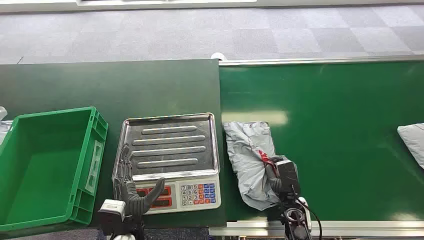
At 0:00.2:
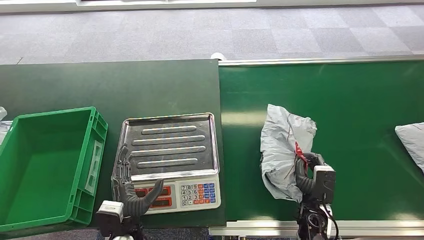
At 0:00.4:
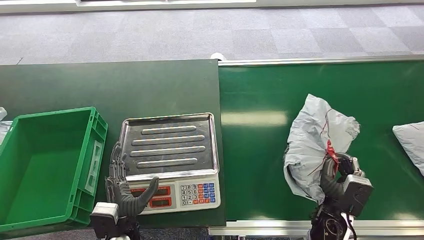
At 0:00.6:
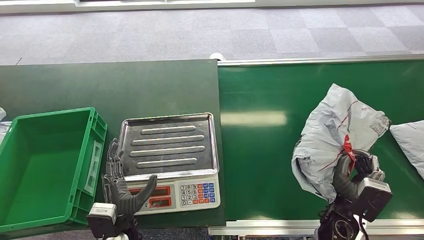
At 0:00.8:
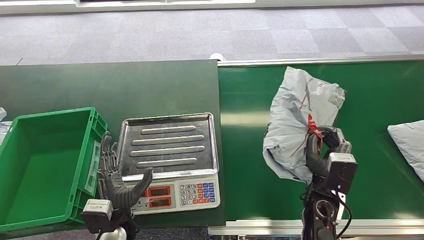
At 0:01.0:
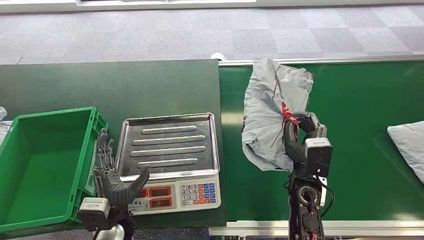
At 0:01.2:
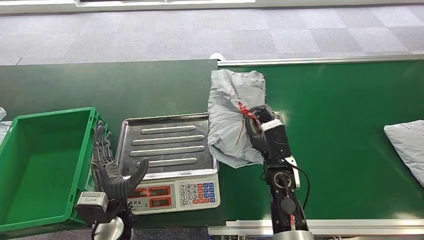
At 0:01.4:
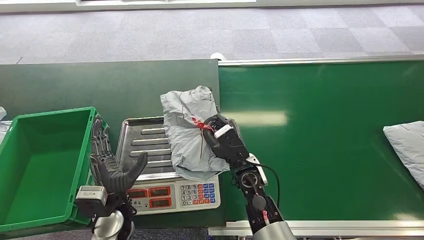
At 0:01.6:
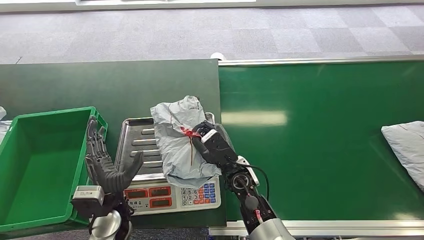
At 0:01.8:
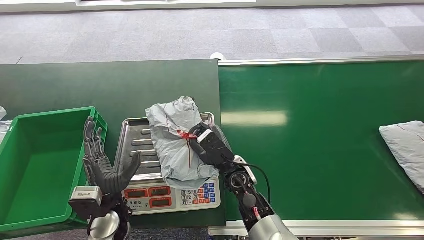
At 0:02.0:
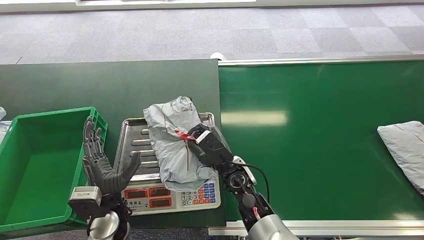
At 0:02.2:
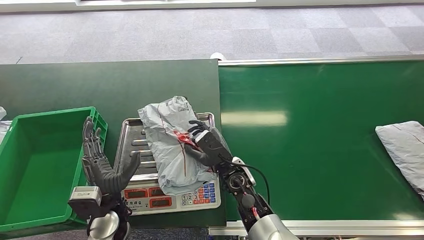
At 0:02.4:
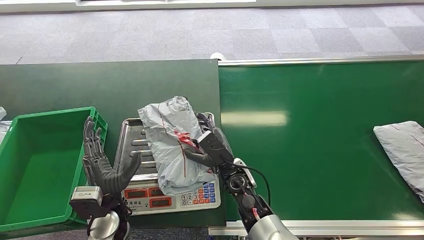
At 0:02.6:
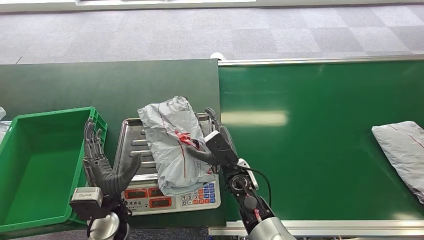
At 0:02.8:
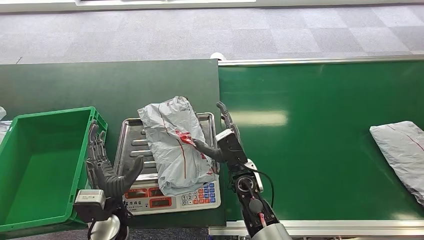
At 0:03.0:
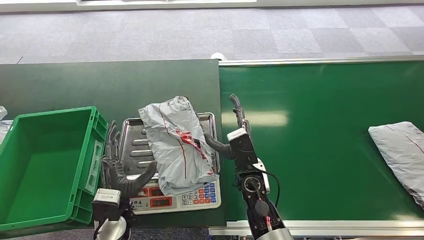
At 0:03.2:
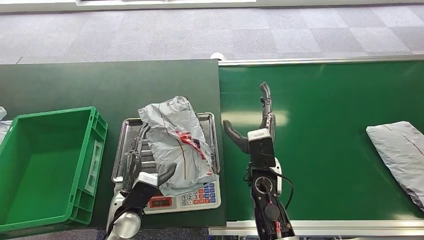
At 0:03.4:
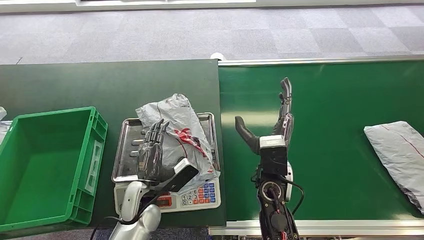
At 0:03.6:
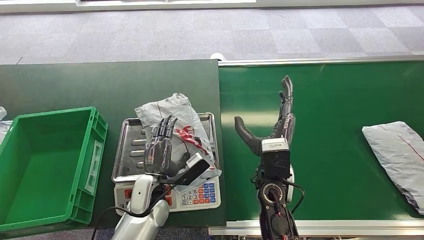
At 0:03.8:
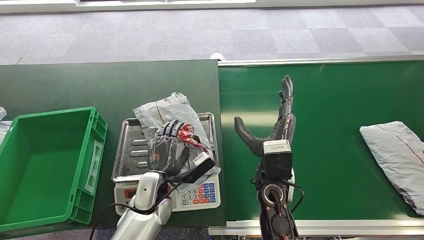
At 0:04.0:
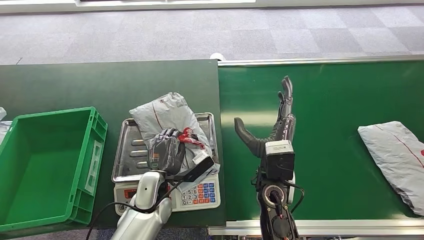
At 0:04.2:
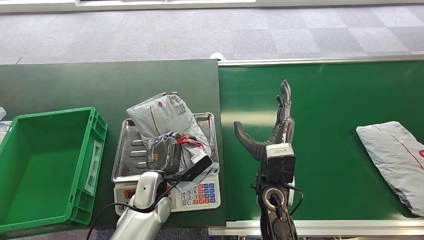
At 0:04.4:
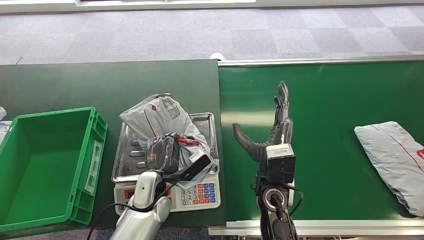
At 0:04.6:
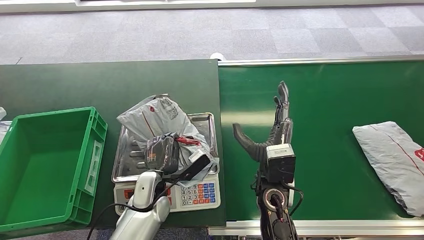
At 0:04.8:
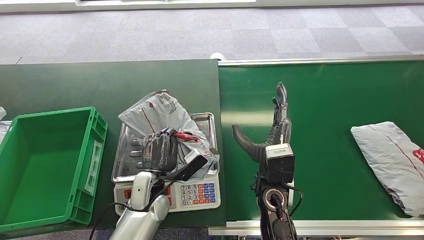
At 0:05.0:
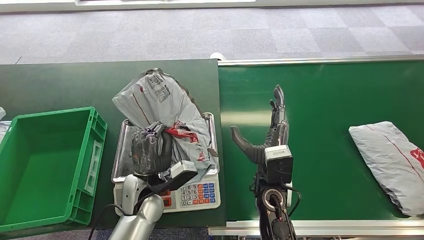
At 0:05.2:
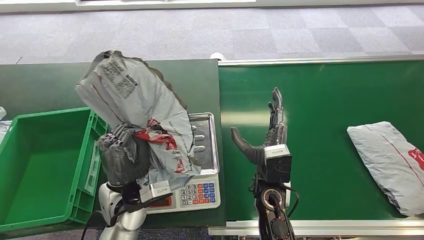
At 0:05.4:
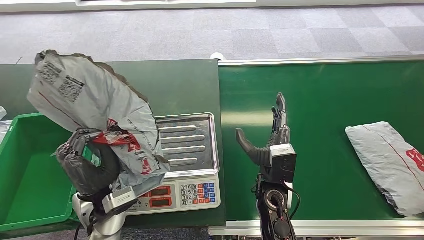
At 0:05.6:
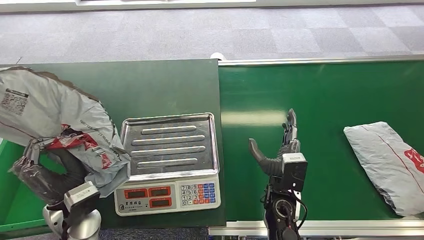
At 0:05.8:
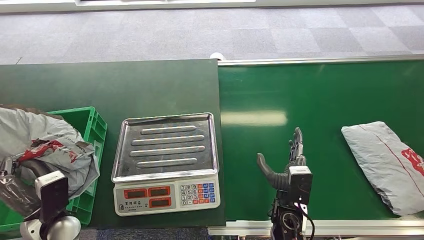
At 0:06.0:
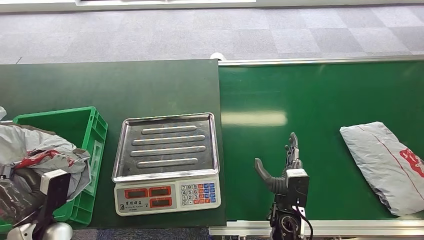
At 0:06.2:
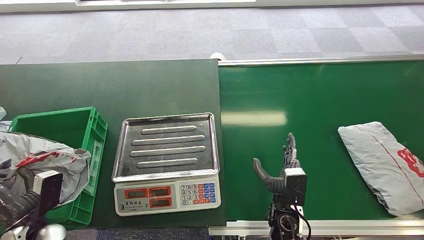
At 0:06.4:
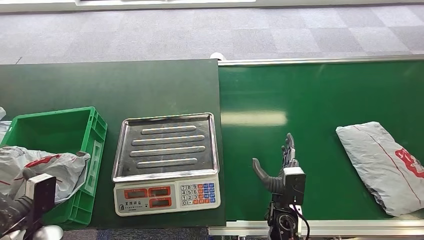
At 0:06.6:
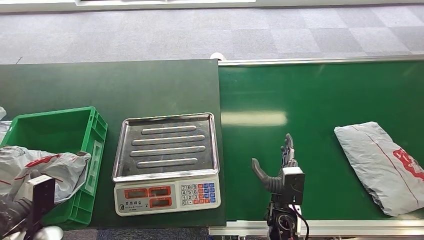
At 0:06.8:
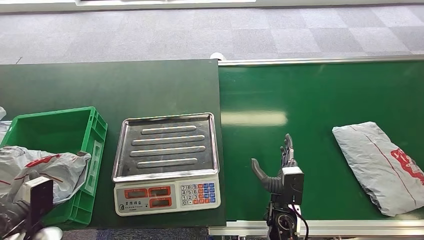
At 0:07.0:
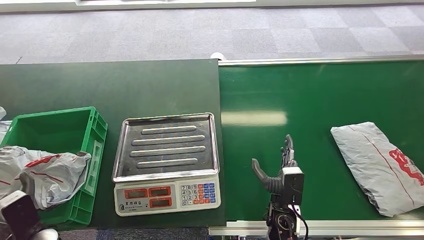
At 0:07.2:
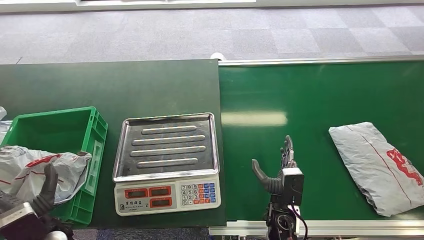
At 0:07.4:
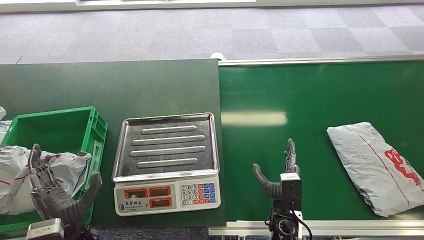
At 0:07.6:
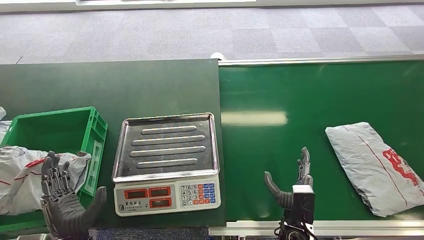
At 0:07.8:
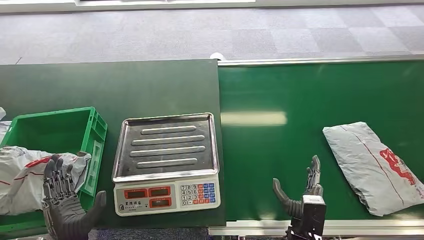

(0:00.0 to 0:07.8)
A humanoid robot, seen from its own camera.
Task of the whole recording: Weigh the package on the weighing device and place it in the left basket.
Step, 0:00.0 - 0:00.8: Pick up the package from the conveyor belt.
Step, 0:01.2 - 0:02.4: Place the package onto the inbound machine.
Step, 0:04.8 - 0:05.4: Pick up the package from the inbound machine.
Step, 0:06.0 - 0:07.6: Place the package into the parcel locker.
0:01.6 - 0:03.2: The right hand changes place by roughly 5 cm.
0:03.2 - 0:04.6: The left hand moves to the right and forward, about 10 cm.
0:06.2 - 0:07.8: The right hand heads backward, covering some 5 cm; the left hand shifts about 10 cm to the right.
